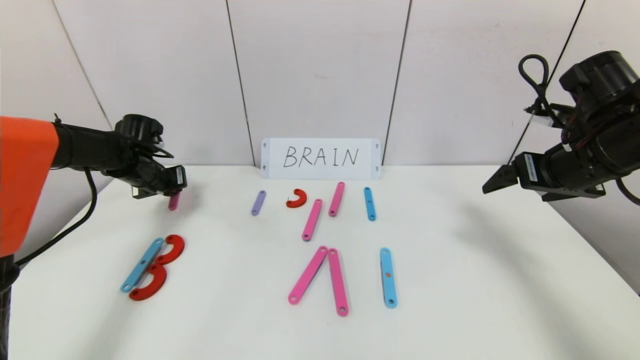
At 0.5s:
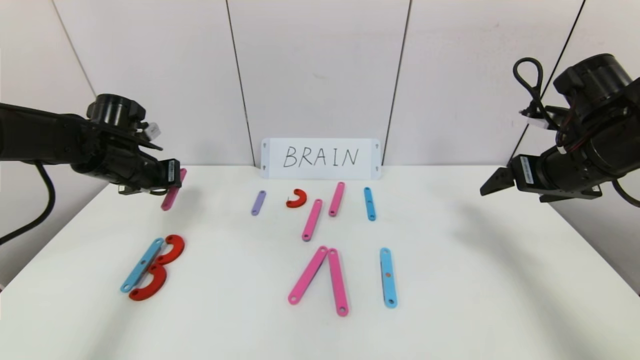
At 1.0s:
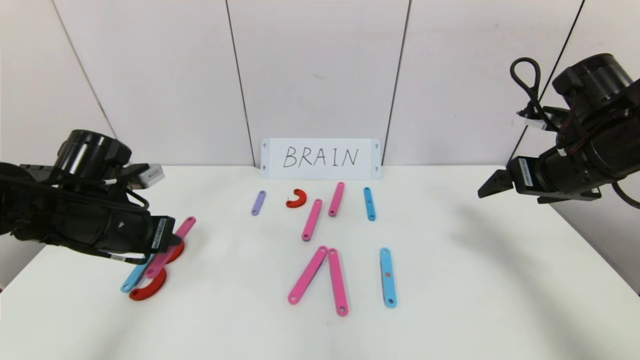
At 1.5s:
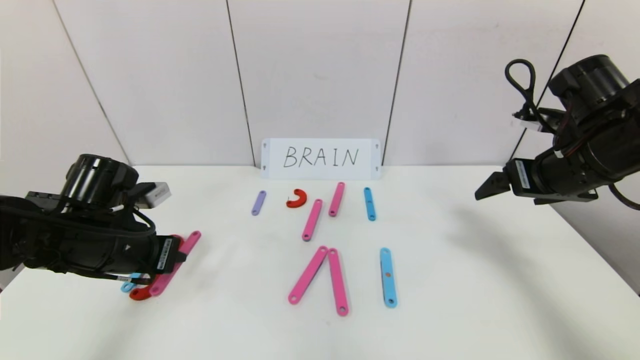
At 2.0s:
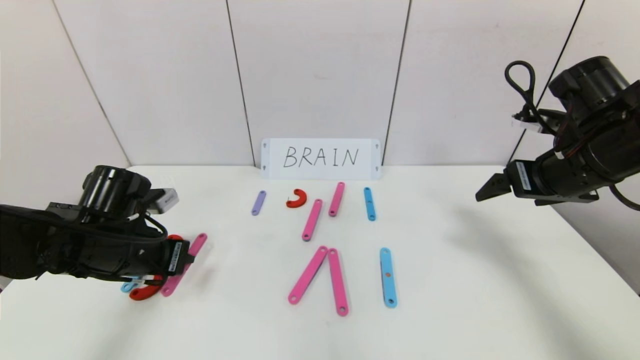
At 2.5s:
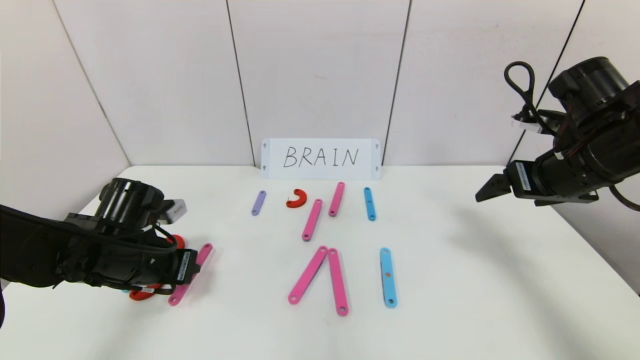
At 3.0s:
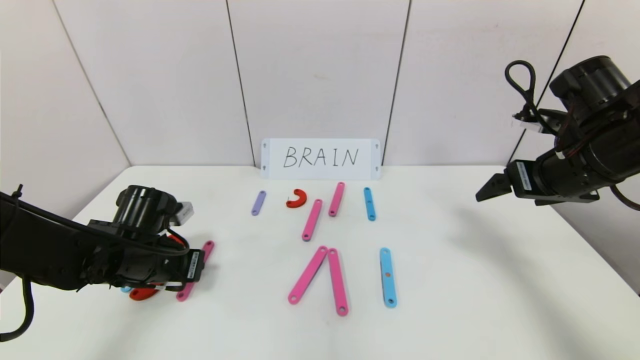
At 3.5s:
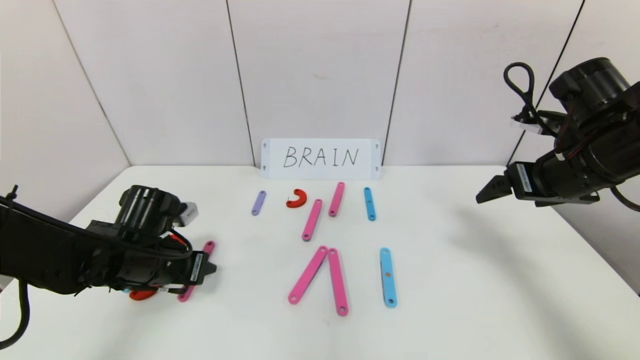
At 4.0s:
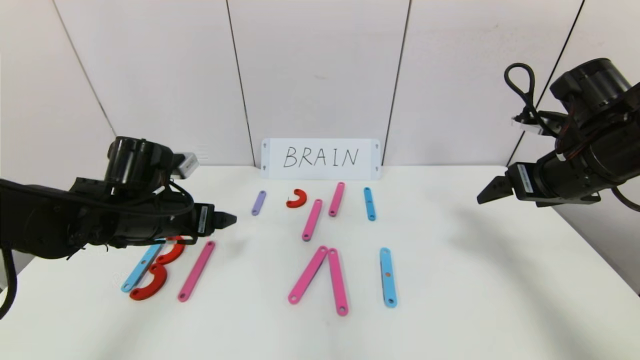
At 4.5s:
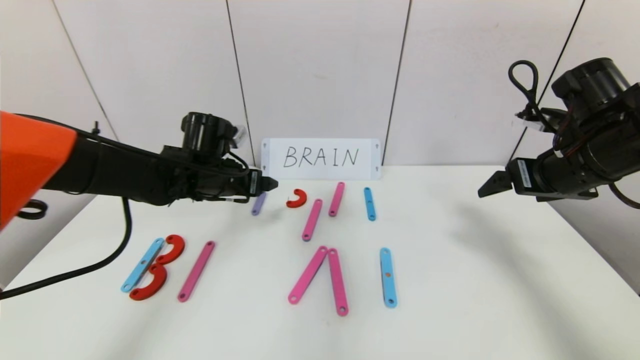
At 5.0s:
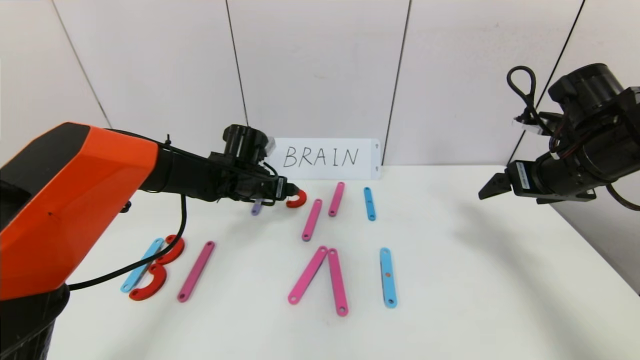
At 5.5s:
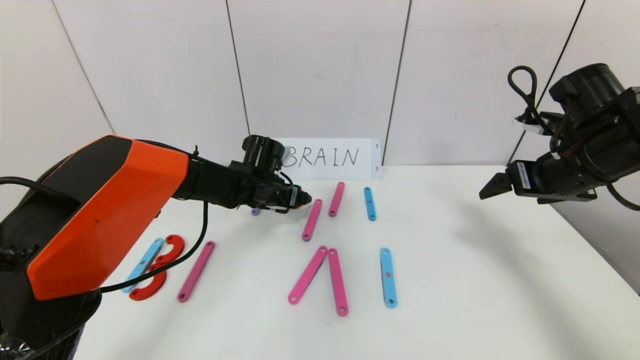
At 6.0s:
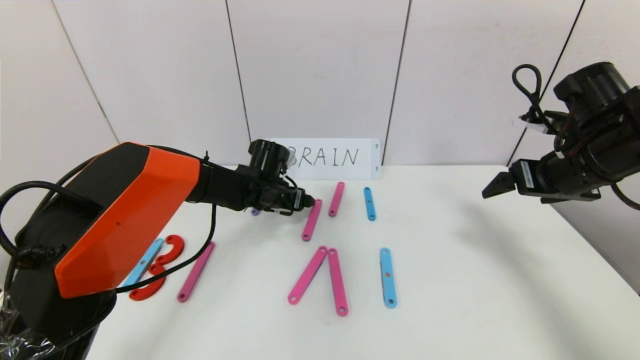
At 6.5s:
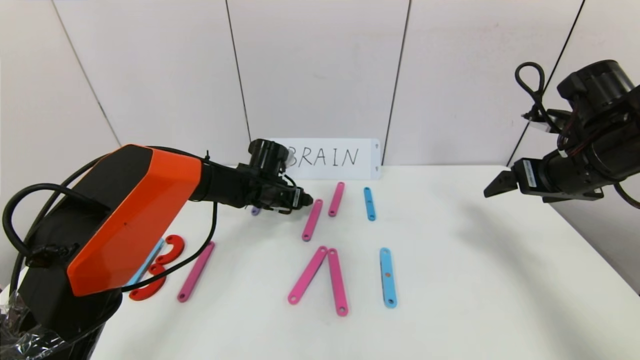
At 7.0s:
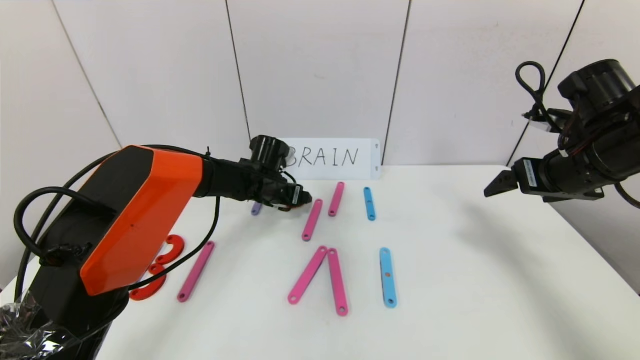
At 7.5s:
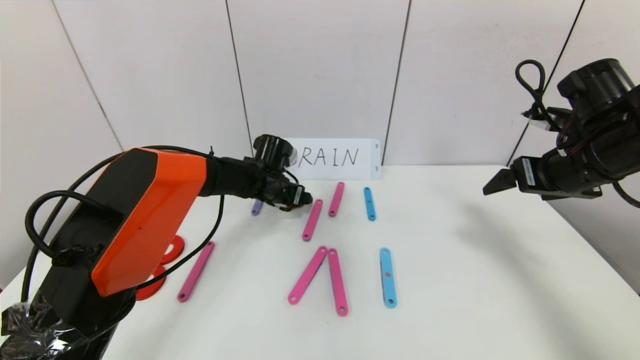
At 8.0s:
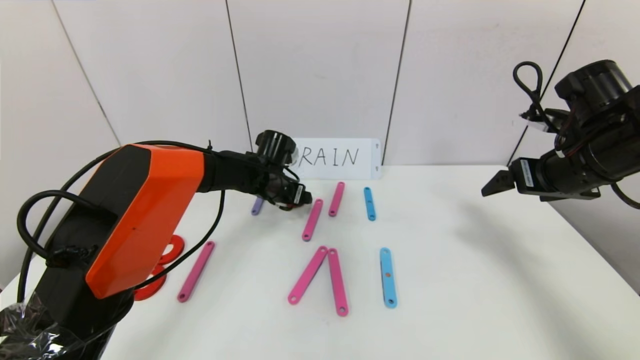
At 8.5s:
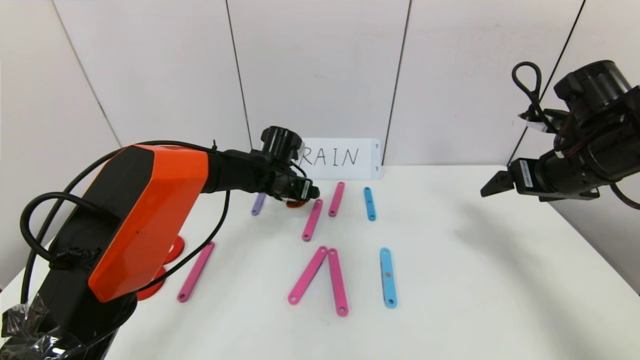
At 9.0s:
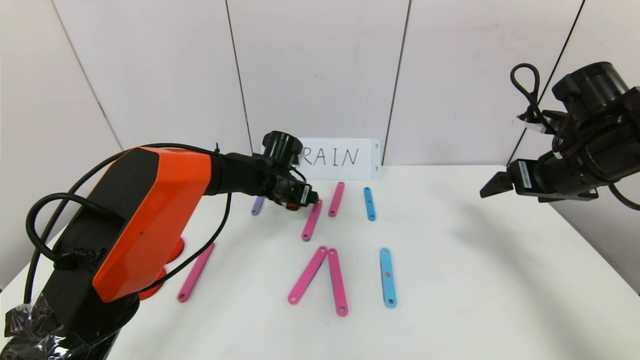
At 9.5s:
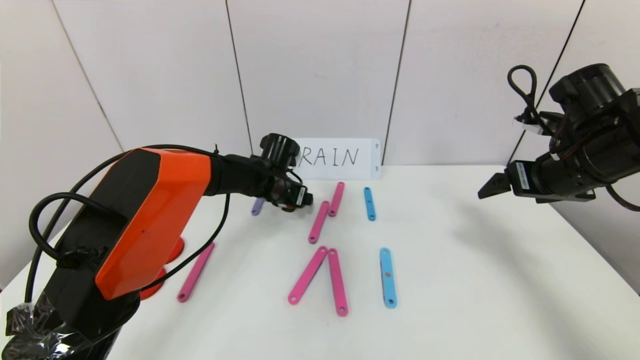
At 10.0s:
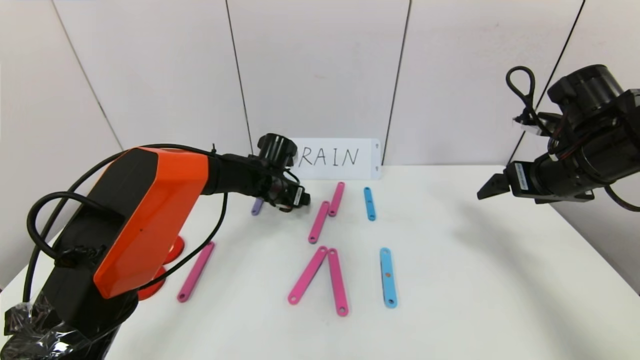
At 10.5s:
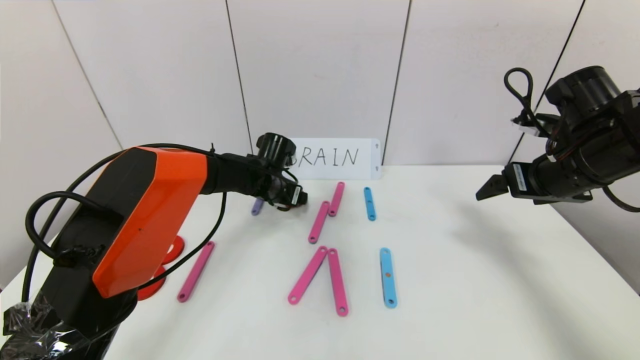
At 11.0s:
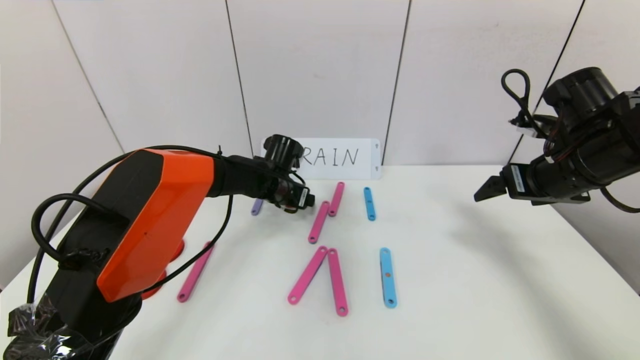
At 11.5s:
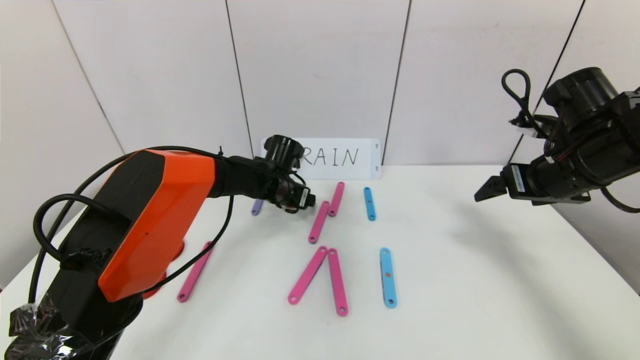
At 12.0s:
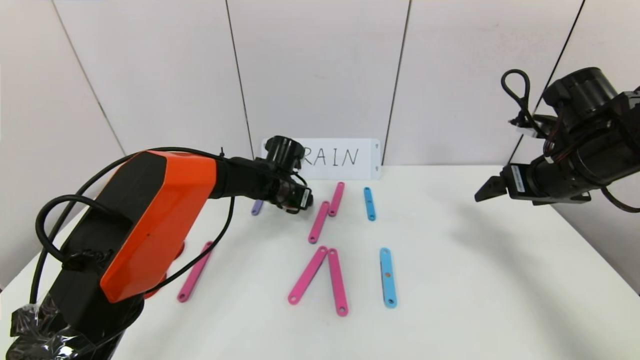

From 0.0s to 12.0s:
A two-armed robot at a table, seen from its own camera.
Task of the whole recording: rearrange the word baai as brain.
From 0.0s to 2.0s: The left gripper heads backward and to the right, covering about 20 cm.
From 2.0s to 4.0s: The left gripper shifts by some 5 cm, and opens.
From 4.0s to 6.0s: The left gripper shifts roughly 20 cm forward, to the right and downward.
From 6.0s to 12.0s: The grippers make only small movements.

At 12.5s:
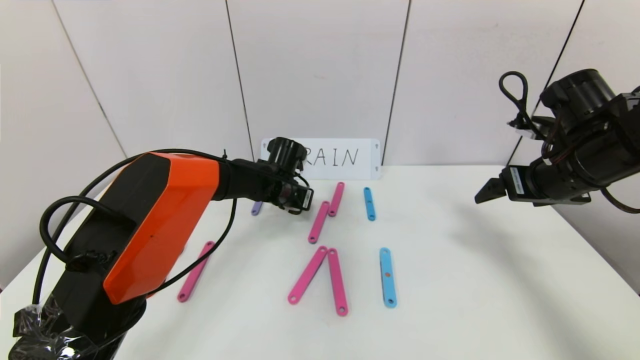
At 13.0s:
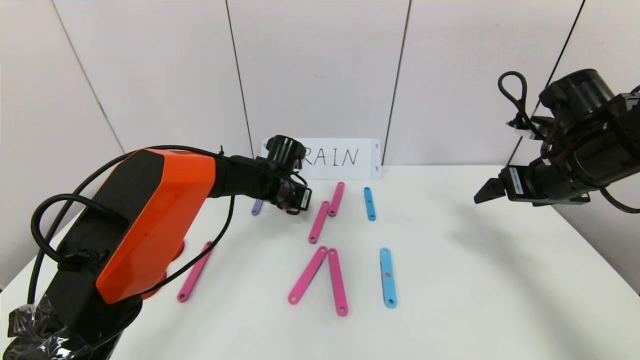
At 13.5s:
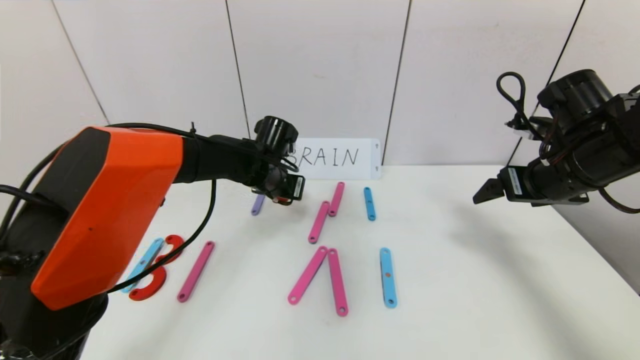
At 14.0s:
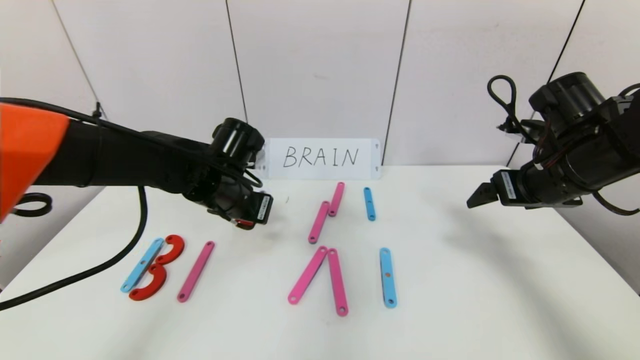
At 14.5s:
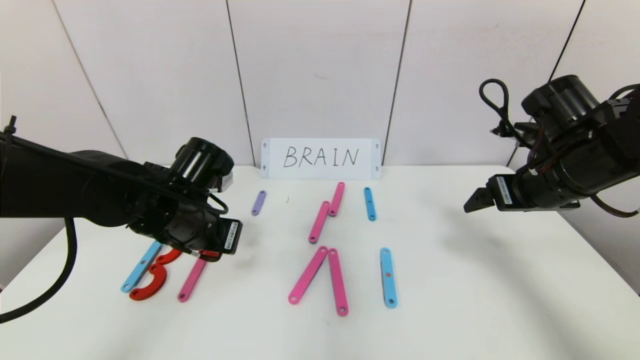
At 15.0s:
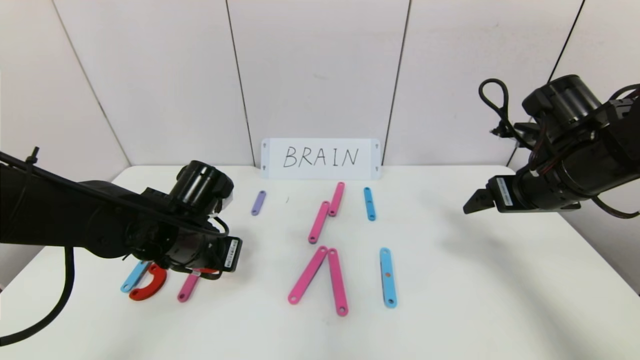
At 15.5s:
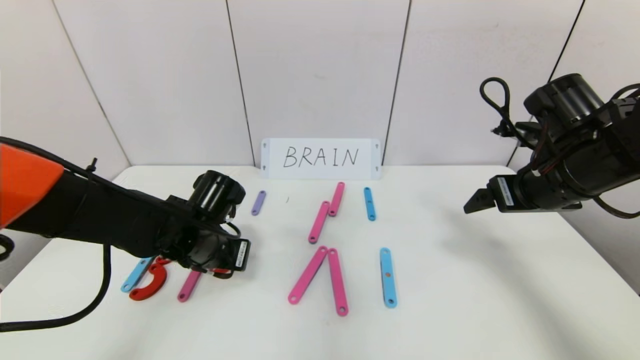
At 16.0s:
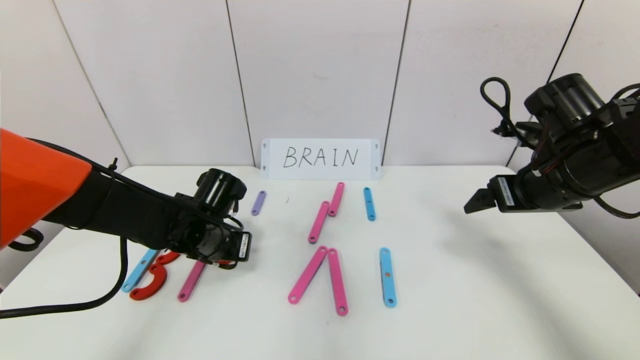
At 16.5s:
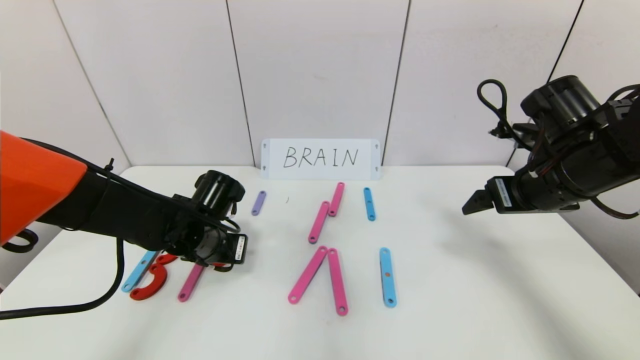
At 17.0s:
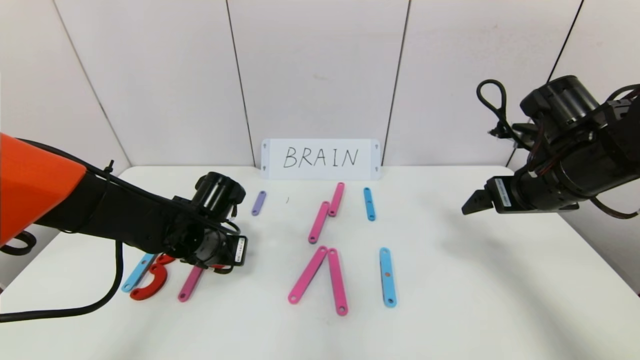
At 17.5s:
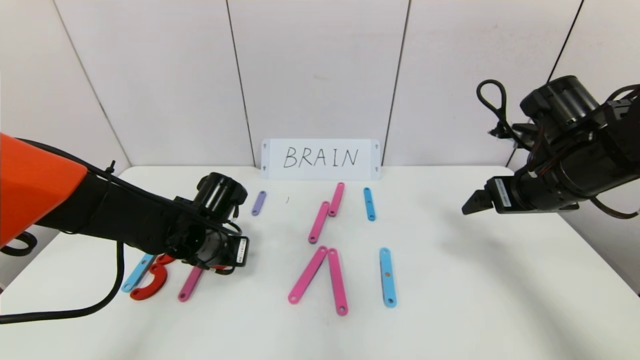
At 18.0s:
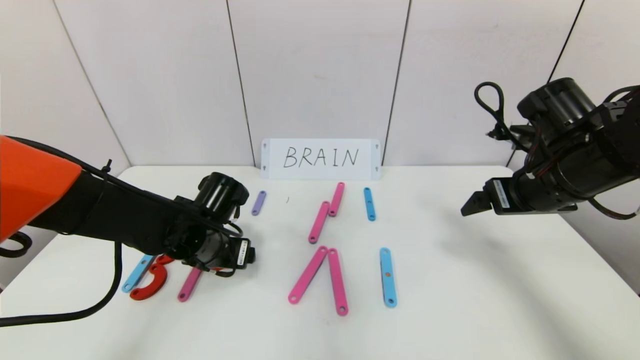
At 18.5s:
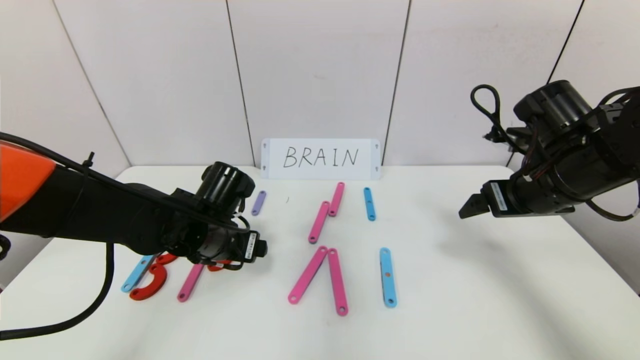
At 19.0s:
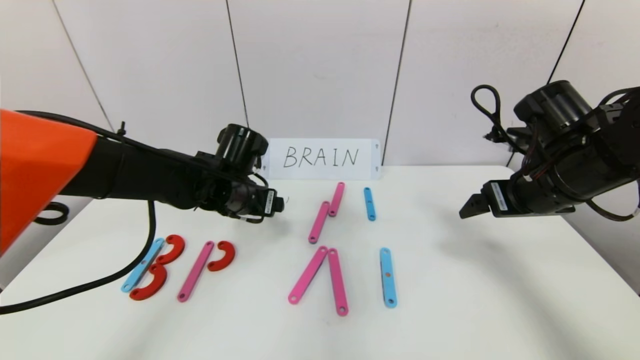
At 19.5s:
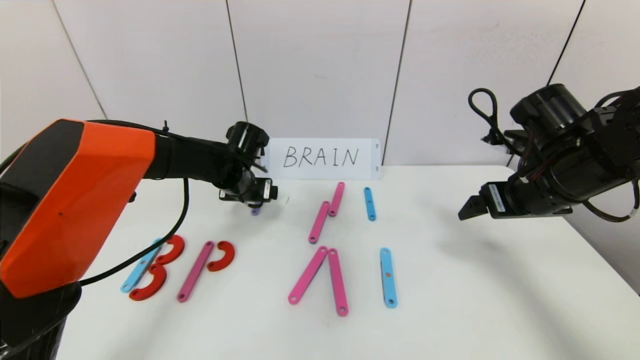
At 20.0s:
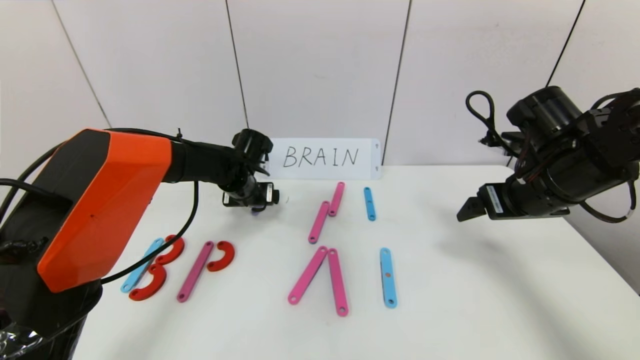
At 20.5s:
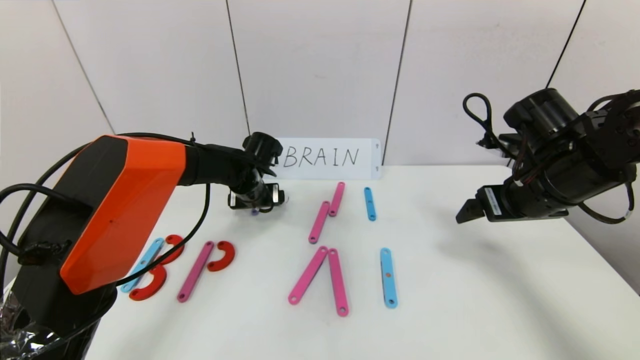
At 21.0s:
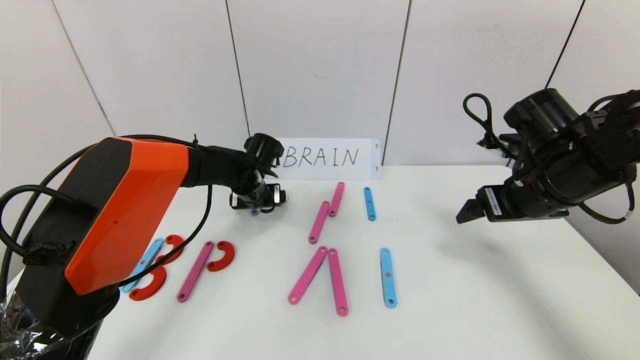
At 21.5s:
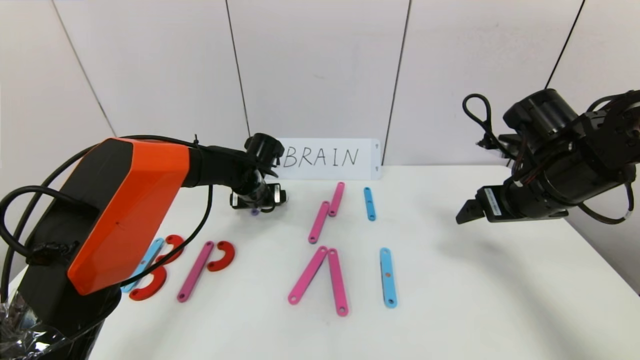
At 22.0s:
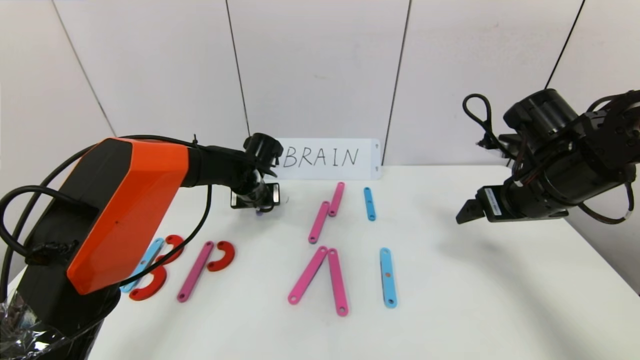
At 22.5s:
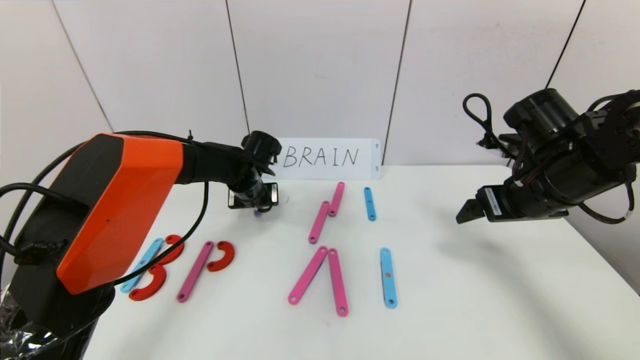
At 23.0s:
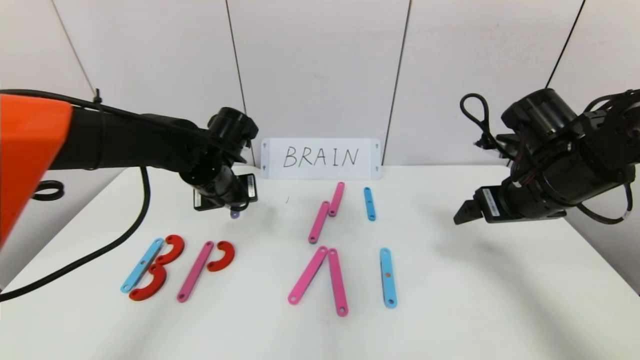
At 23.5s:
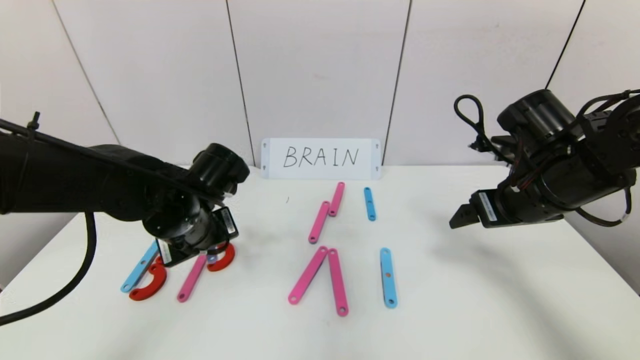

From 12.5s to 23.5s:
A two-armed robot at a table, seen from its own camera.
Task of the whole recording: rearrange the word baai as brain.
From 12.5s to 14.5s: The left gripper goes approximately 20 cm backward and to the left.
From 14.5s to 16.0s: The left gripper shifts about 5 cm downward.
From 16.0s to 18.0s: The left gripper opens.
From 18.0s to 20.0s: The left gripper is displaced forward by some 15 cm.
From 20.0s to 21.5s: The grippers move only a little.
From 21.5s to 23.5s: The left gripper shifts roughly 15 cm backward, and closes its fingers.
